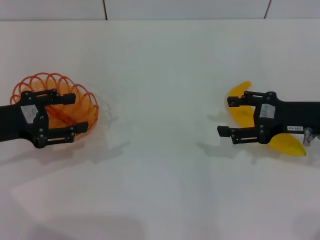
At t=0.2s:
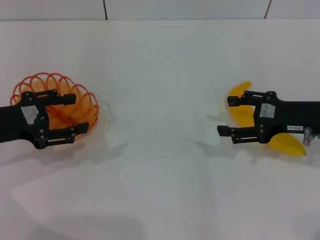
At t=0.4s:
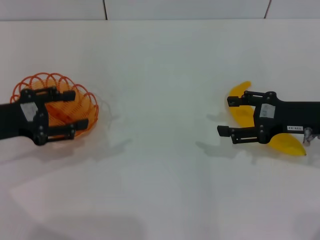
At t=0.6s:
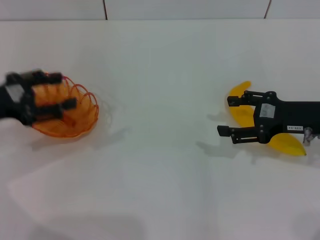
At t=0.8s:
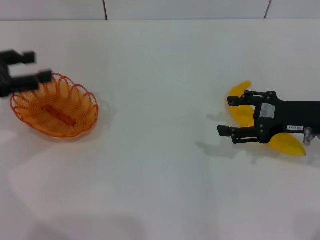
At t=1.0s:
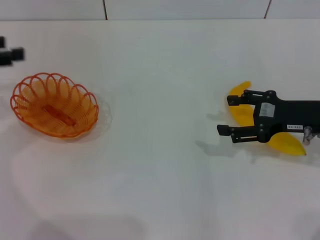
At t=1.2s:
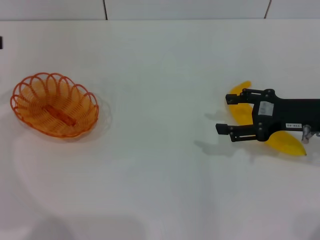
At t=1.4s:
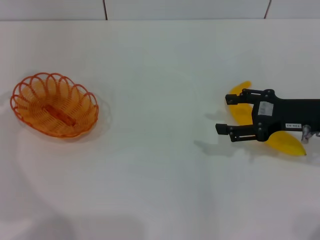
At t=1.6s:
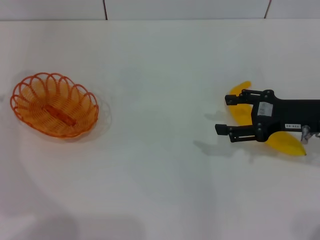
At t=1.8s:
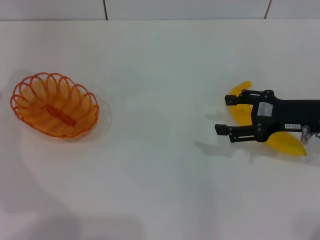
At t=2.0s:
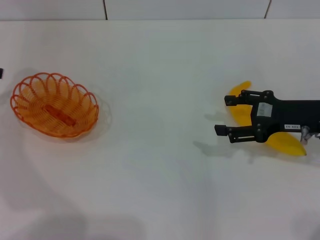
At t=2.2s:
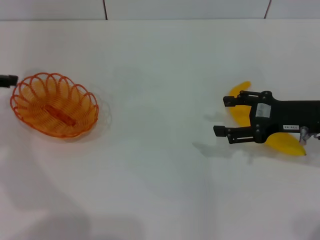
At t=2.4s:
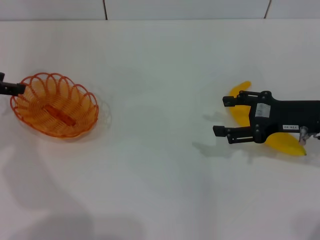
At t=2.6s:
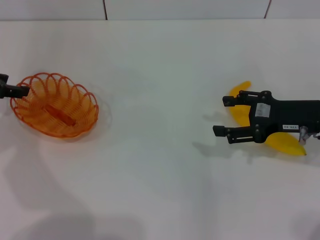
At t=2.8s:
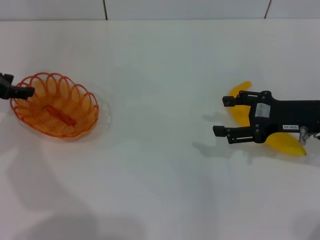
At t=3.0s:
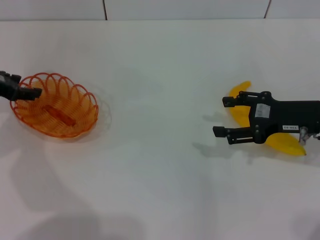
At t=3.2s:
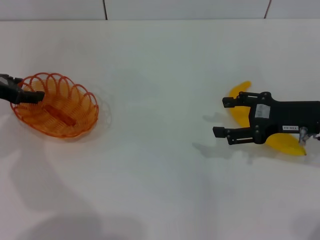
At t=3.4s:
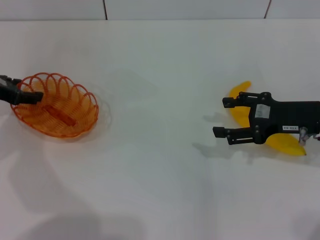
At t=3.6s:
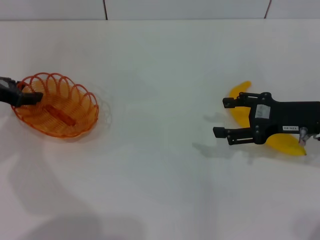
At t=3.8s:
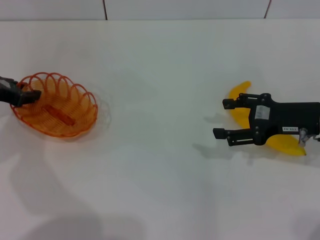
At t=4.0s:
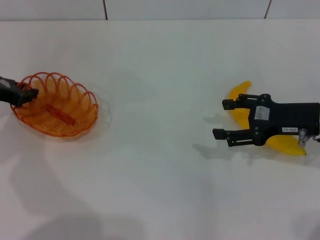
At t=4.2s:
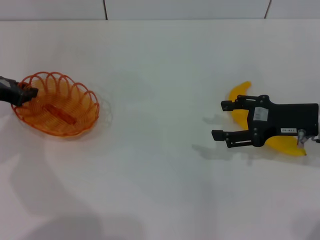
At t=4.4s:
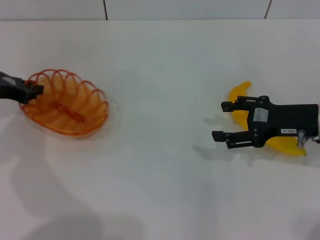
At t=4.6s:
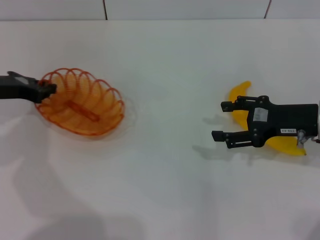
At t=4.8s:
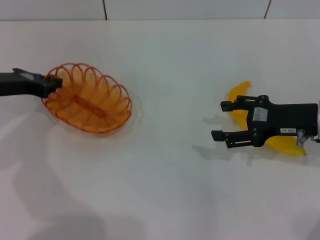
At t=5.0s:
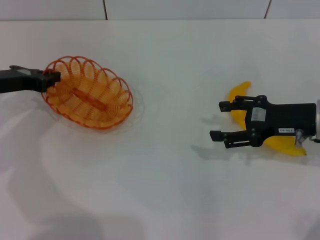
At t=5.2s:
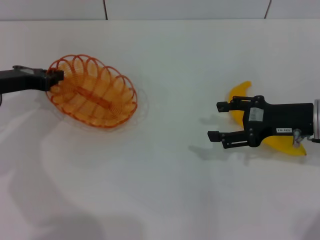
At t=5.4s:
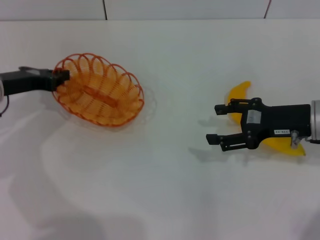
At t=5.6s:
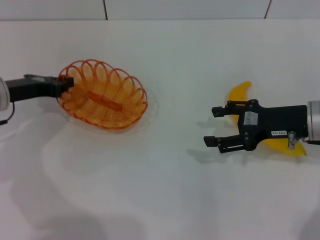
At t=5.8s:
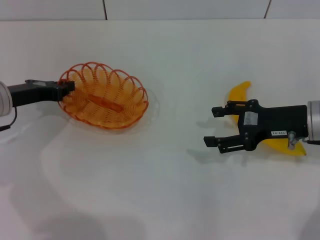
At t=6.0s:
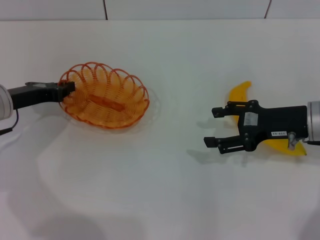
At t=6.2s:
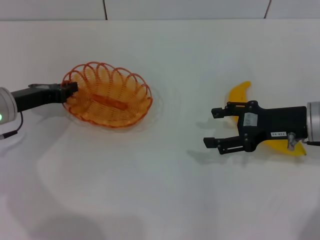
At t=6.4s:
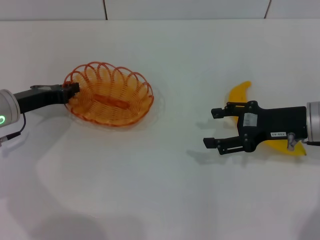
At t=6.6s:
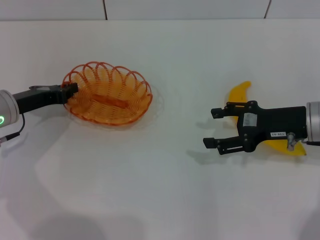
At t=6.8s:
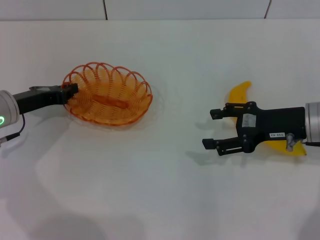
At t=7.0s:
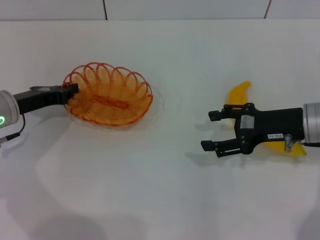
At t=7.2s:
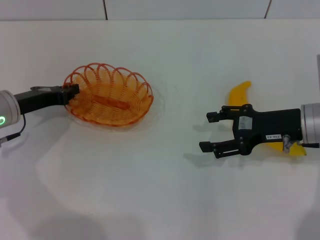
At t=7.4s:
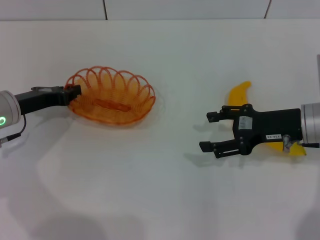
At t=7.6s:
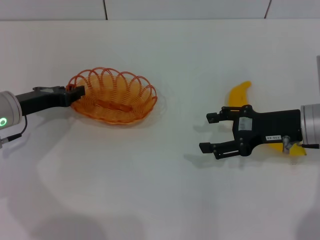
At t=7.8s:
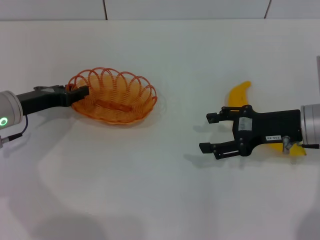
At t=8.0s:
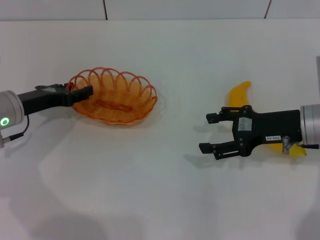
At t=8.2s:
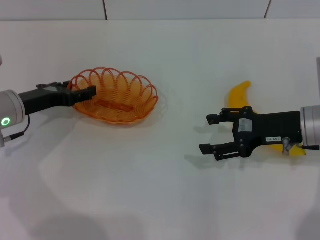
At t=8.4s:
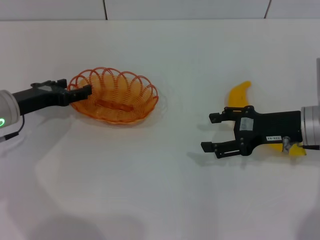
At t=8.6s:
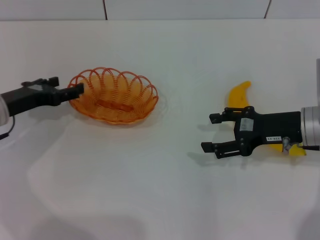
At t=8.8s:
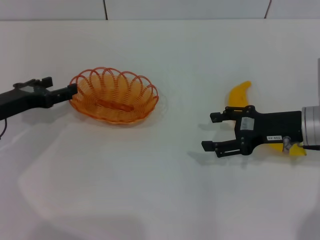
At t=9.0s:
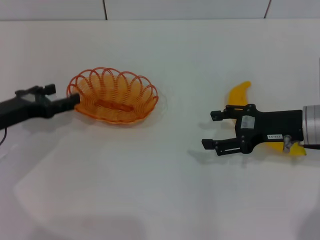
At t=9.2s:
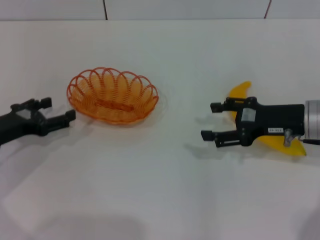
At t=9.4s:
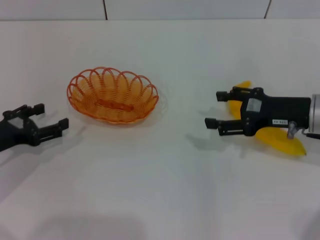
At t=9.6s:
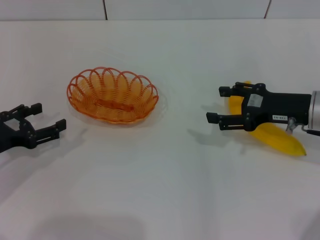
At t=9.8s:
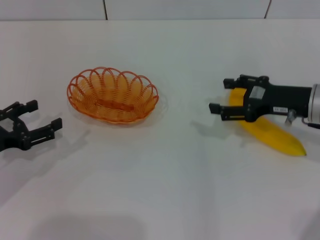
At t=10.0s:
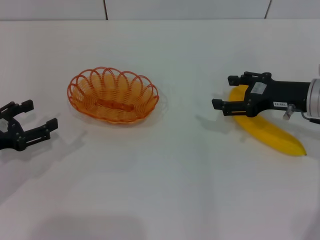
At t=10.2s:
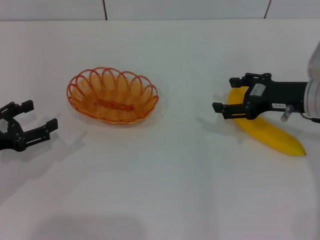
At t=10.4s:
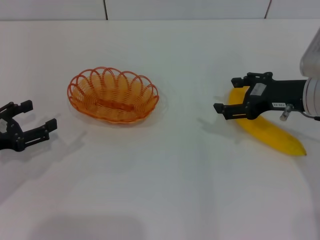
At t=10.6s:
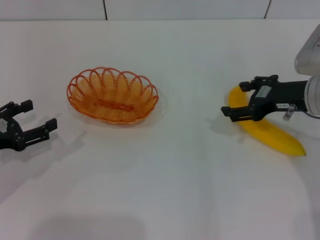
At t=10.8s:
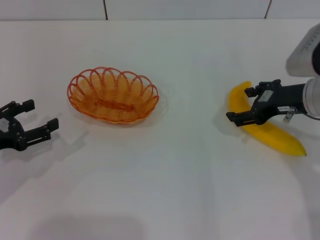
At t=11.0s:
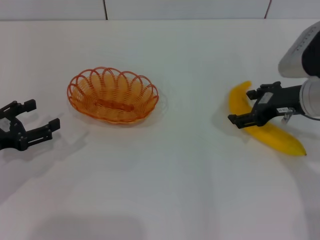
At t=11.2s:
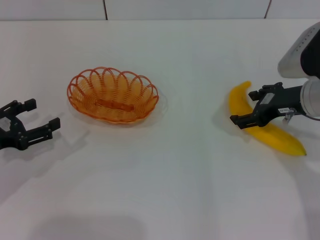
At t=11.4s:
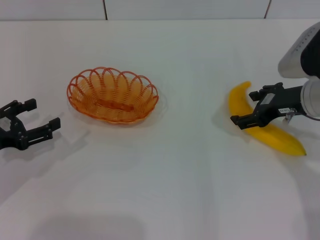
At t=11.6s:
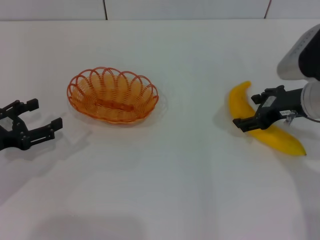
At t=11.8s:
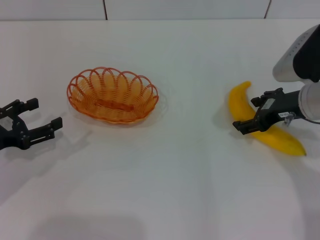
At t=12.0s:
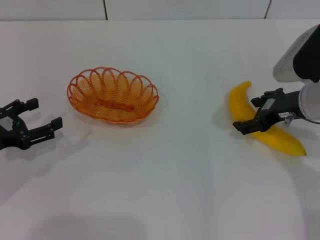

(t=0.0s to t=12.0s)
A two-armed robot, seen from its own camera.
Step, t=0.0s - t=4.8s: Pick up the basket with the left gripper.
Step, t=5.0s - t=9.4s: Place the basket in the center of view with the left gripper.
t=0.0s - t=1.6s: The left gripper travels upward, to the left and forward by some 15 cm.
t=1.6s - t=3.0s: The left gripper travels downward and to the right by some 10 cm.
t=3.0s - t=4.4s: The left gripper closes.
t=4.4s - t=6.0s: The left gripper ends up some 5 cm from where it was.
t=6.0s - t=7.6s: The grippers stay close to where they were, moving slightly.
t=7.6s - t=9.0s: The left gripper opens up.
t=9.0s - t=10.4s: The left gripper goes about 5 cm backward.
t=10.4s - t=12.0s: The grippers stay close to where they were, moving slightly.

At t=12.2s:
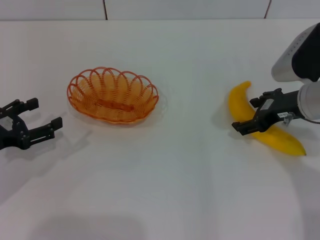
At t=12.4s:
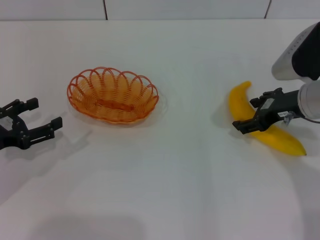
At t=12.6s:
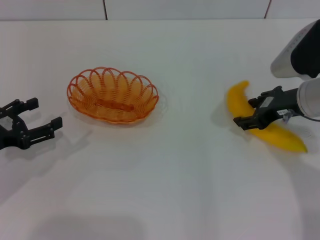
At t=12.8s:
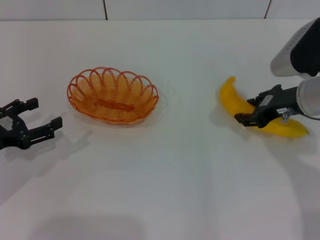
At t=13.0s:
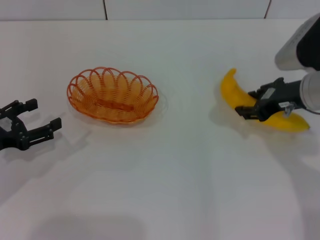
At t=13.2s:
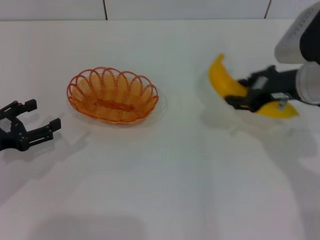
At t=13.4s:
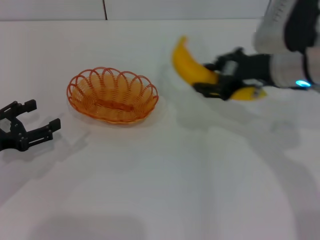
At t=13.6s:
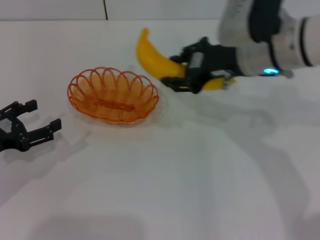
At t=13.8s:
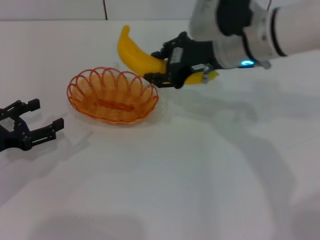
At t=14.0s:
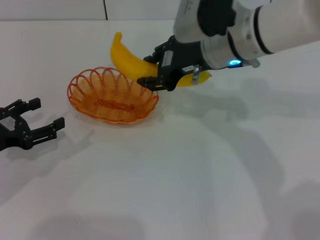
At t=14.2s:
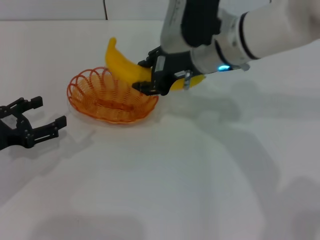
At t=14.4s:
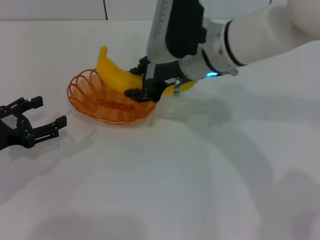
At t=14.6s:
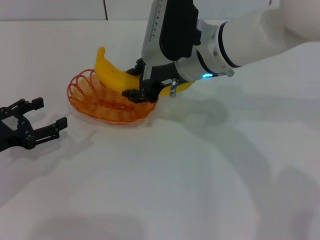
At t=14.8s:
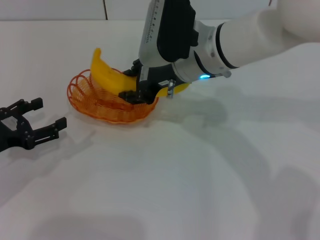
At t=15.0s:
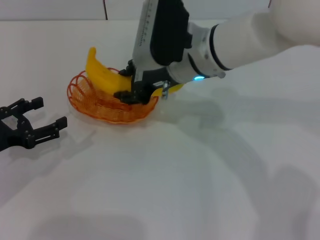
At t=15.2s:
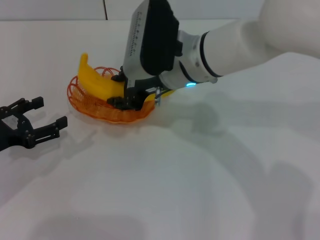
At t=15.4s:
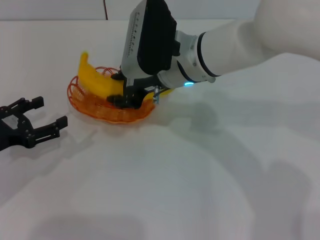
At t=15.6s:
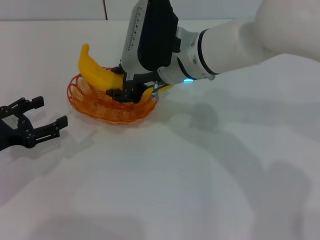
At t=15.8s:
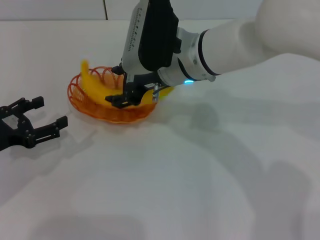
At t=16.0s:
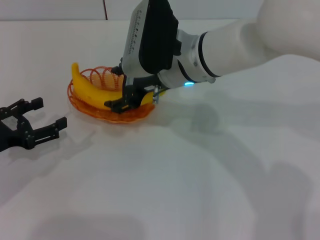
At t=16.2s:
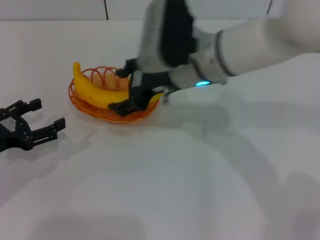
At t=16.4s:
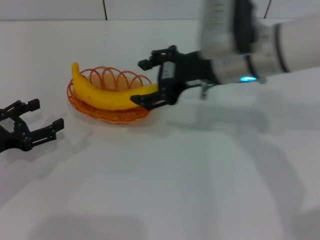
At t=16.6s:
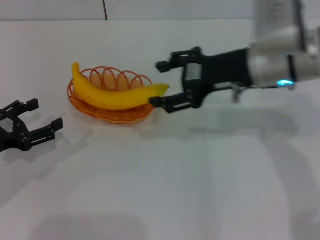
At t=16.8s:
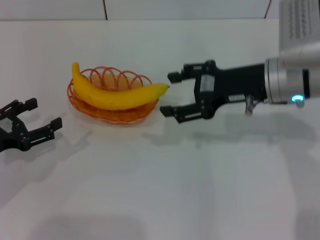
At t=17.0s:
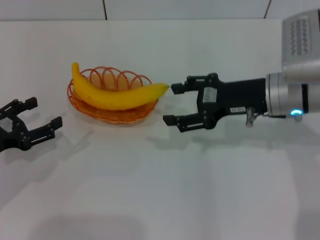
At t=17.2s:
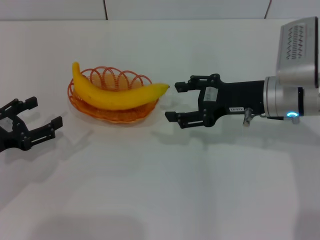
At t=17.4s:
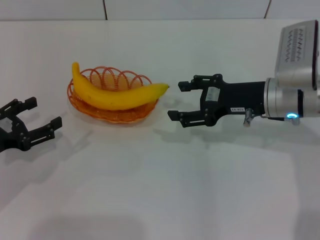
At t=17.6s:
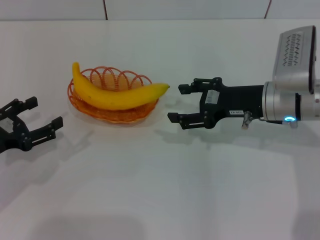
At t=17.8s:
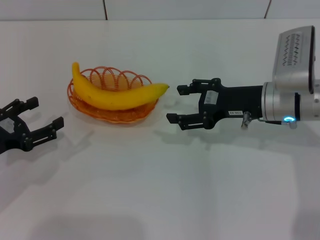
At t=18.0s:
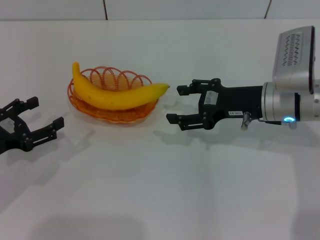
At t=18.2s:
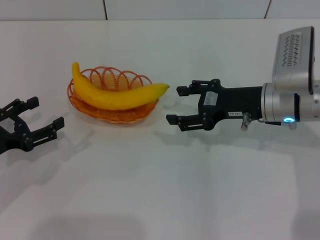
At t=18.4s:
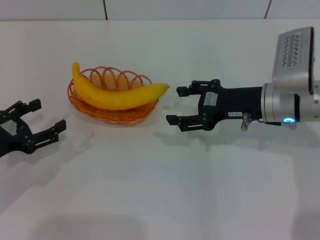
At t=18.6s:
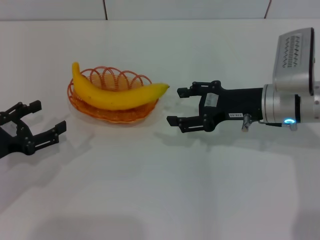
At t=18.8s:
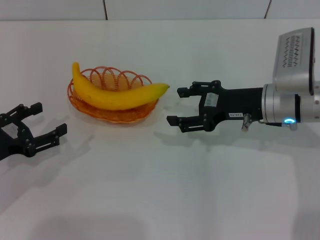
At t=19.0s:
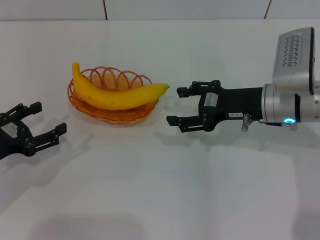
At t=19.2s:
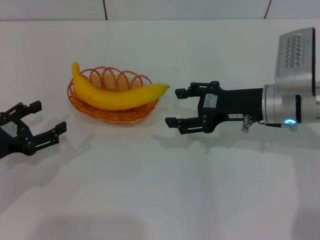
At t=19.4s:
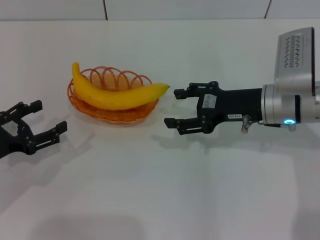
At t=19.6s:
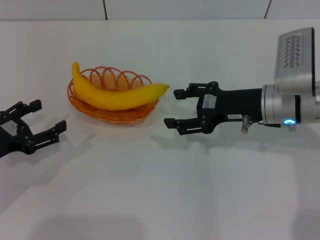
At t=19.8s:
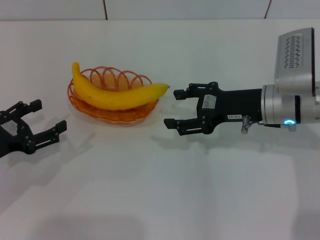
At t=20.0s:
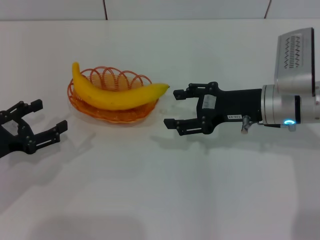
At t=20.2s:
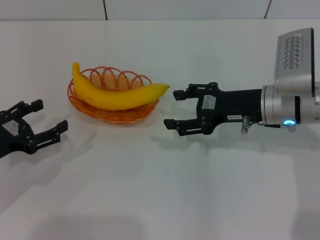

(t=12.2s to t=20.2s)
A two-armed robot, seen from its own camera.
Step, t=13.4s - t=16.6s: Place the banana into the basket with the right gripper.
t=12.2s - t=13.8s: The right gripper travels to the left and upward by some 15 cm, and closes up.
t=13.8s - t=15.4s: The right gripper is displaced to the left by roughly 10 cm.
t=15.4s - t=17.0s: The right gripper shifts some 15 cm to the right, and opens its fingers.
t=17.0s - t=18.6s: The grippers move only a little.
t=18.6s - t=20.2s: Both grippers stay about where they are.
